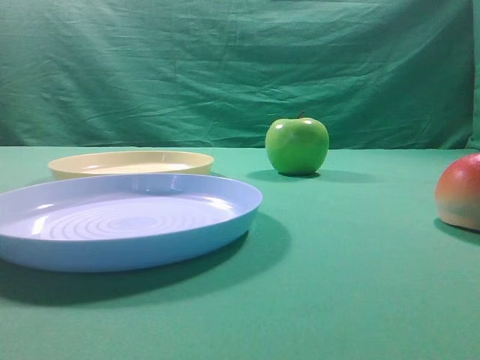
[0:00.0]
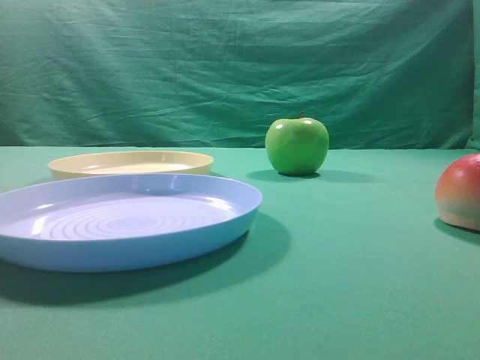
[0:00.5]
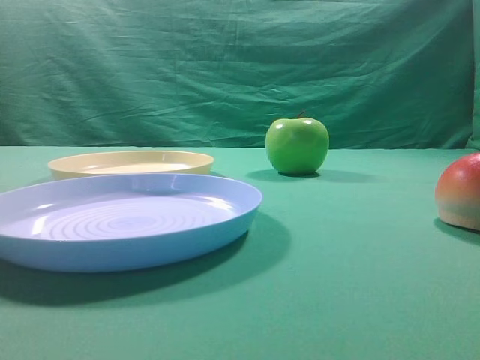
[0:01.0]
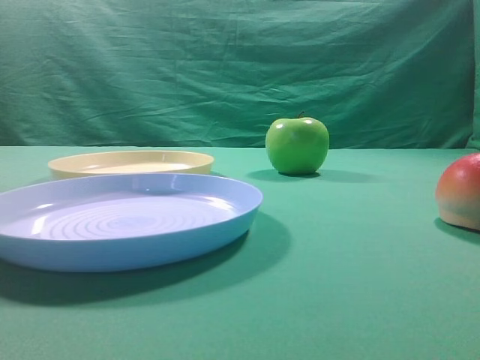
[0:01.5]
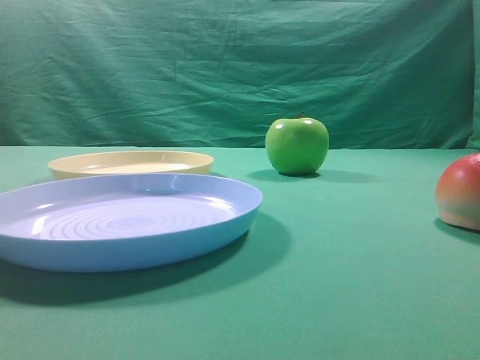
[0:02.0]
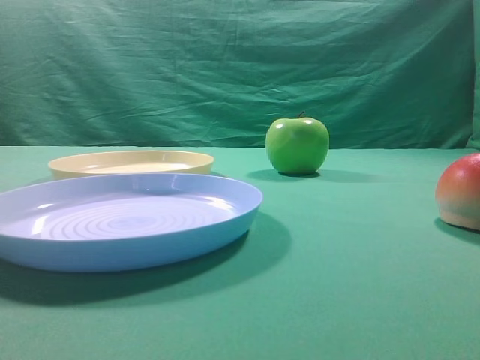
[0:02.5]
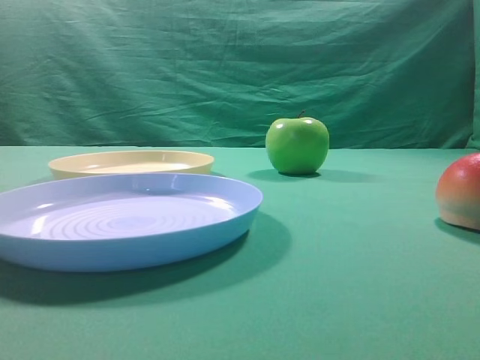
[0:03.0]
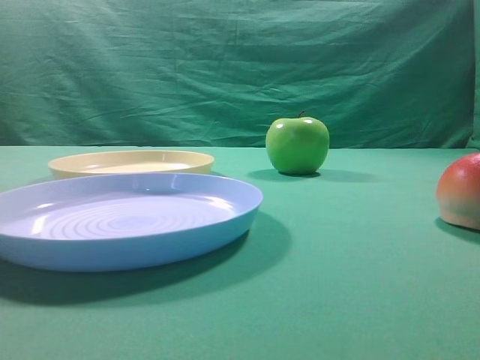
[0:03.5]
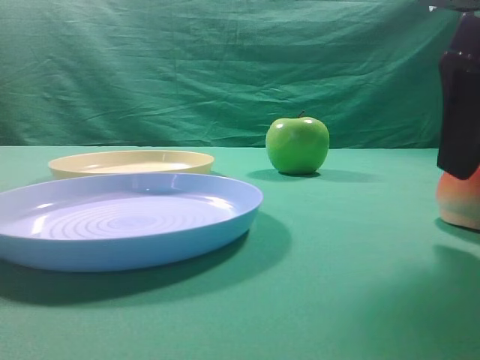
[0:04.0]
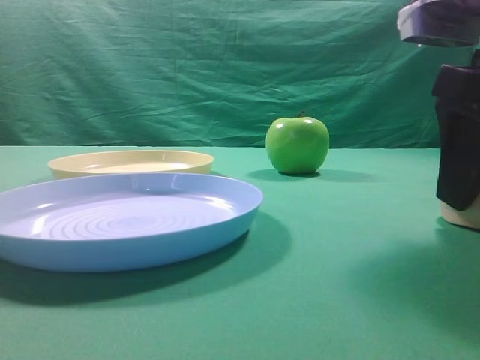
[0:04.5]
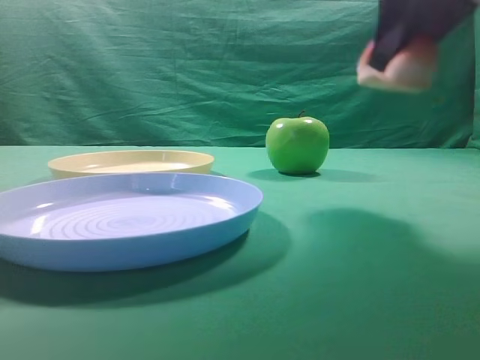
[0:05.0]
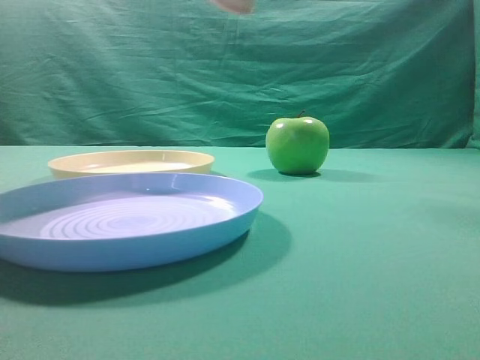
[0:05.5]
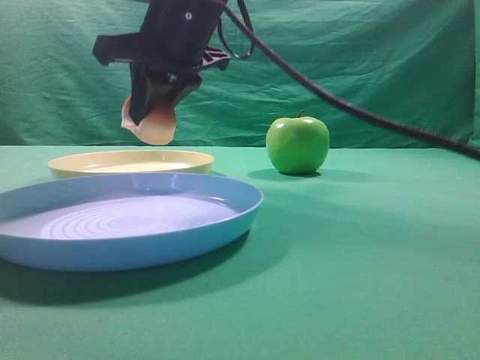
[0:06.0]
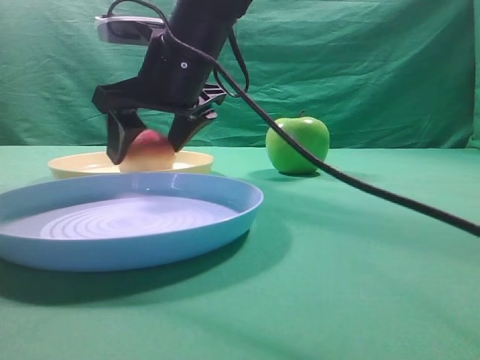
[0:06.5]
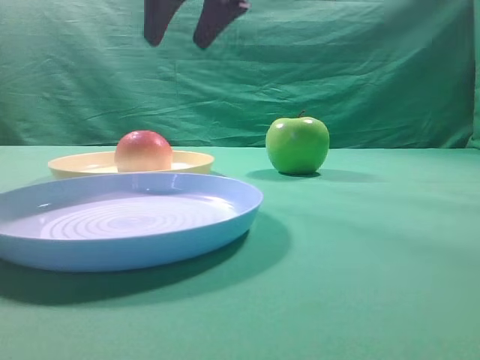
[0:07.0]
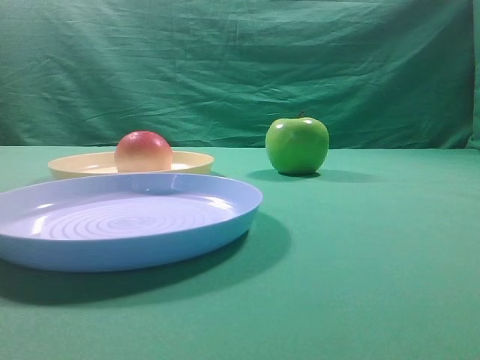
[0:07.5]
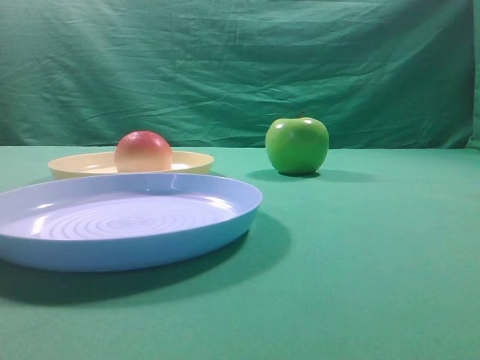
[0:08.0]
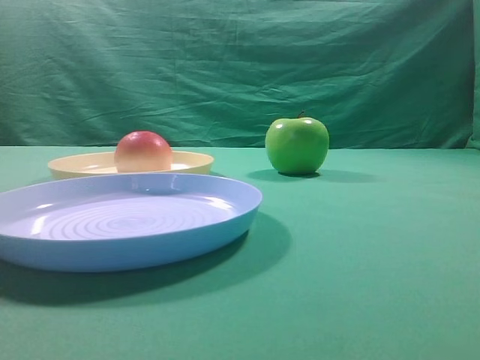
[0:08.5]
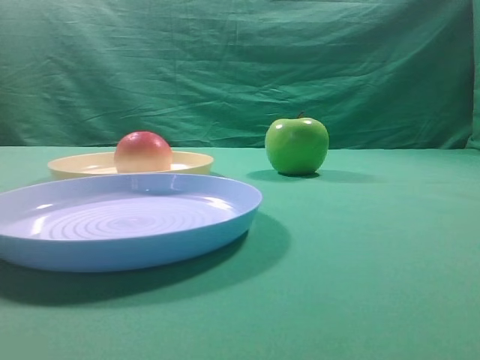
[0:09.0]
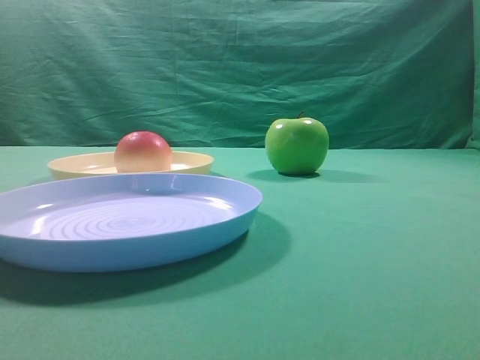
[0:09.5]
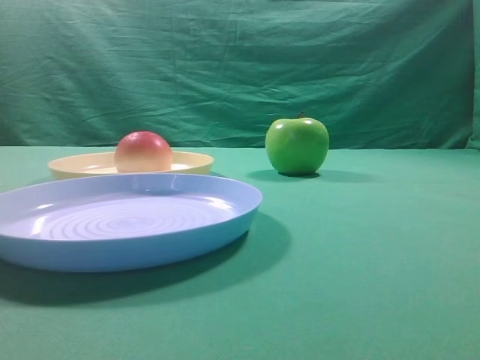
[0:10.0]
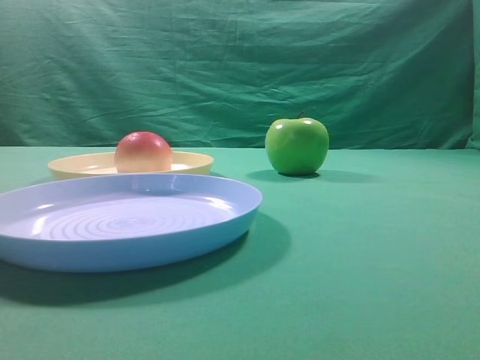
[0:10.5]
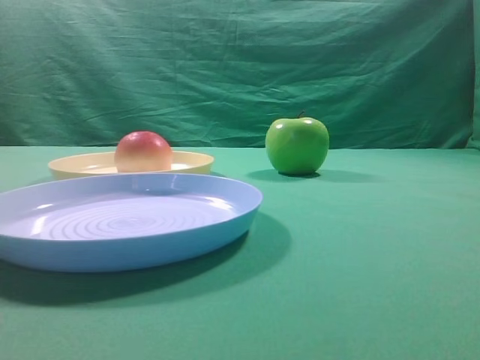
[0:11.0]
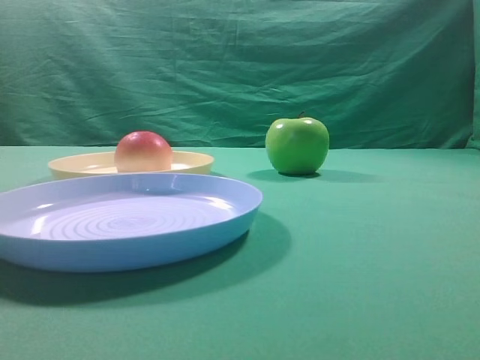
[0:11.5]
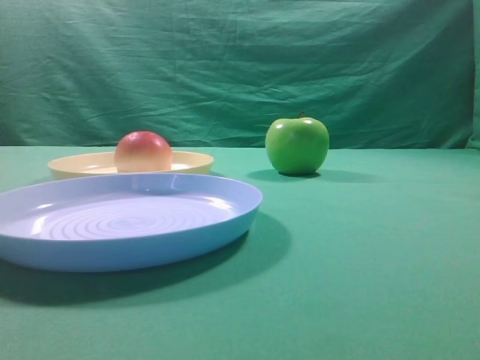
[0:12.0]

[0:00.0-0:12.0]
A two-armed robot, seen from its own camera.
Step, 0:05.0 to 0:06.5: Place the picked object on the yellow plate.
